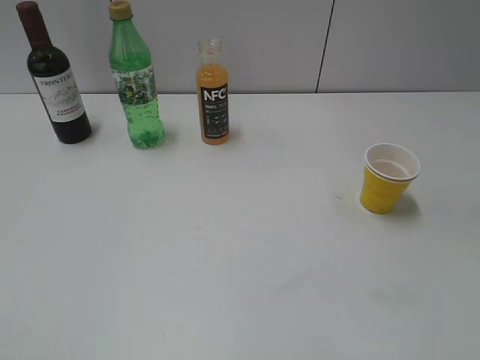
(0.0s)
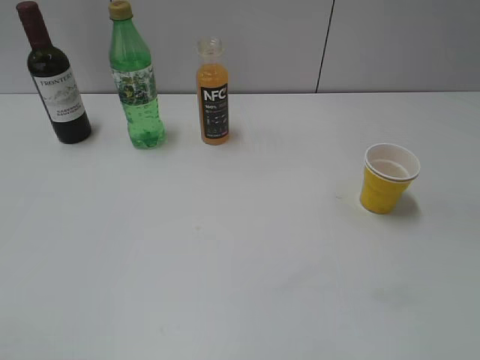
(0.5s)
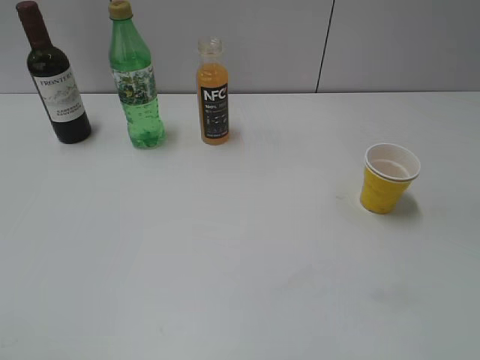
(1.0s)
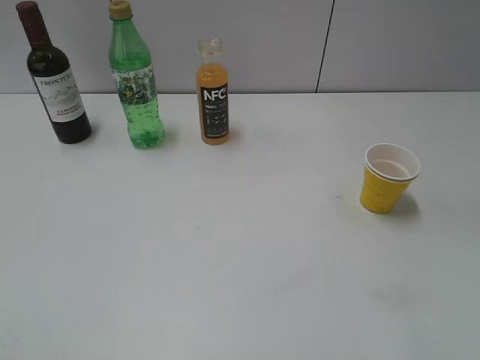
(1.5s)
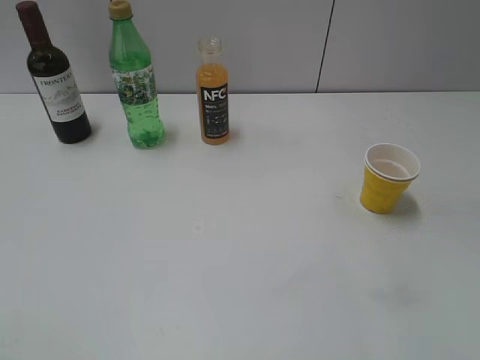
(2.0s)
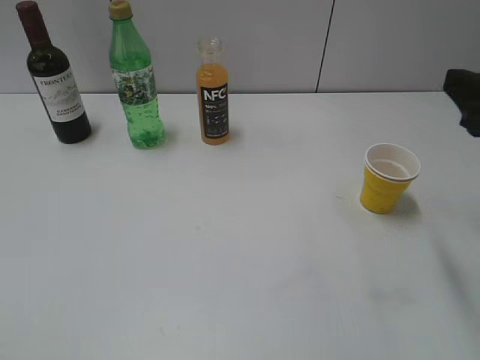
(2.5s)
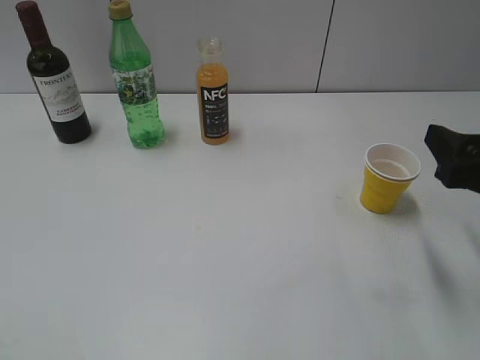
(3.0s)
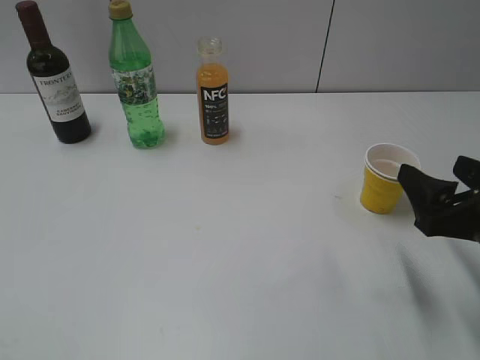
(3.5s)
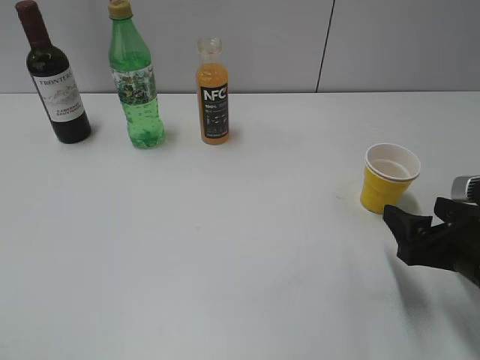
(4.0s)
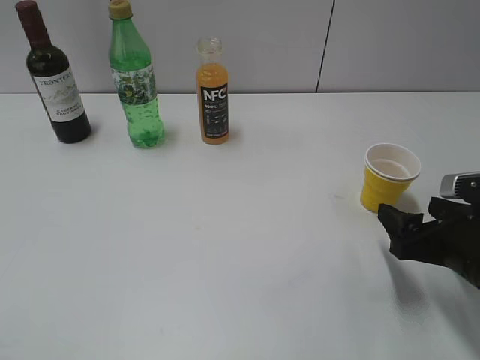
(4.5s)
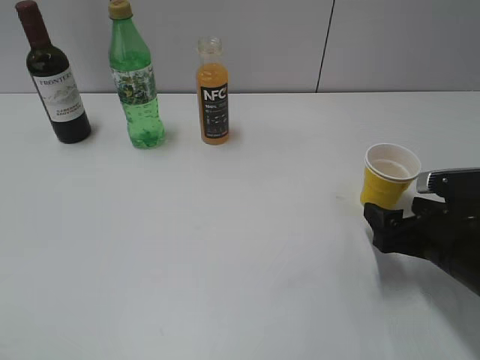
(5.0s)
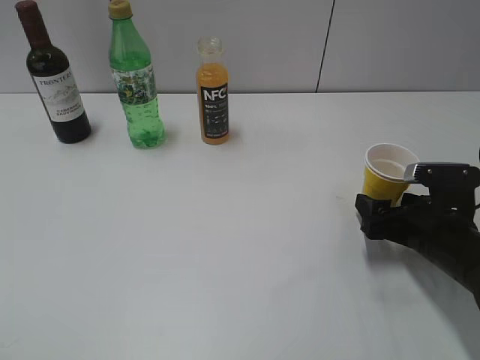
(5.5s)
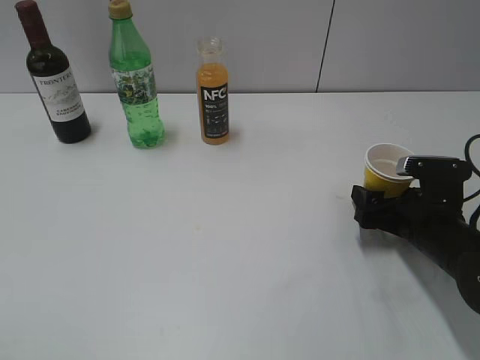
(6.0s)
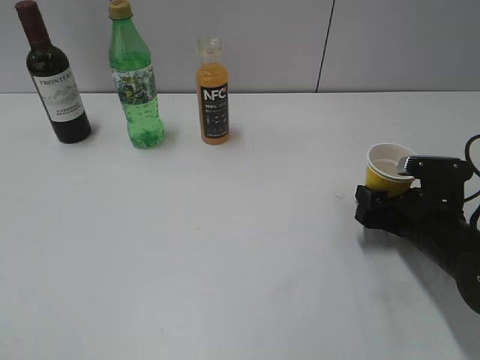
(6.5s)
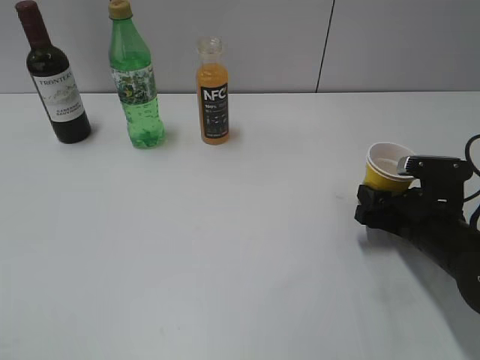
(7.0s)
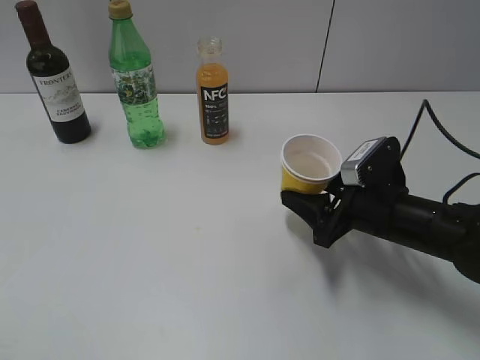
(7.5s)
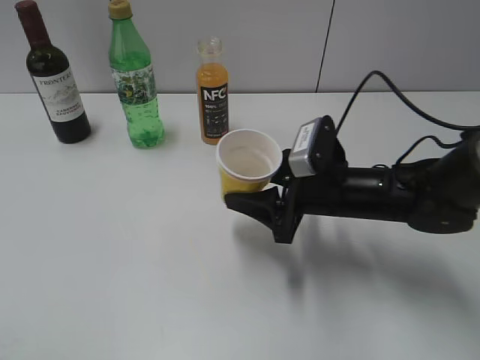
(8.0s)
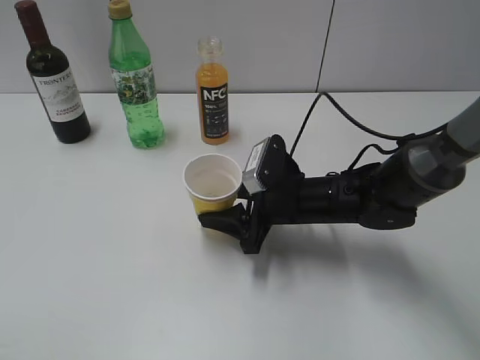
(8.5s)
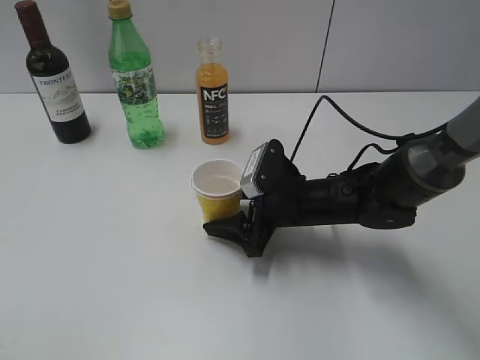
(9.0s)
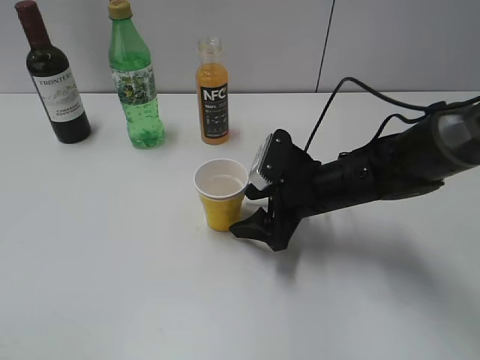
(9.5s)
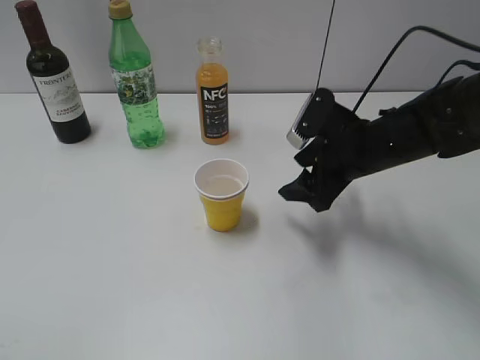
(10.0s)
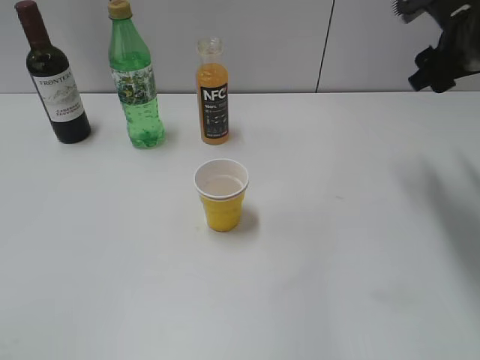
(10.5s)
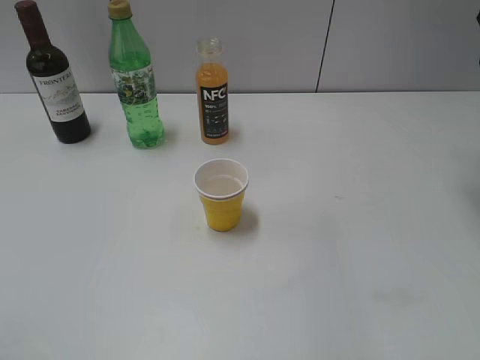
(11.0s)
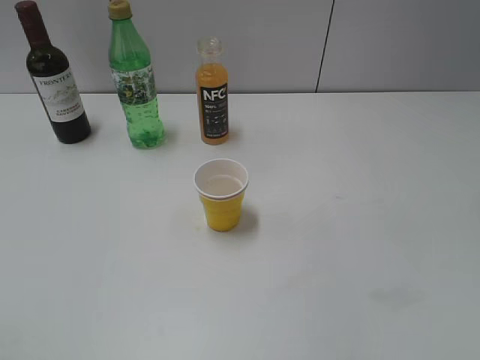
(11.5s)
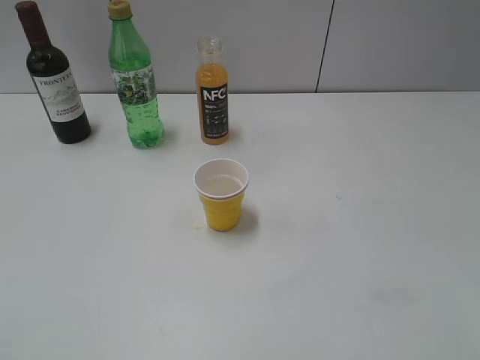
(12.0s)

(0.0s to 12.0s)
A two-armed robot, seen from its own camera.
Step, 2.5s - 6.5s: Grasp the yellow paper cup with right gripper.
Step, 7.0s - 9.5s: Place the yellow paper cup on the table with right gripper.
2.0s - 4.0s: The right gripper shifts about 20 cm downward, and opens its fingers.
4.0s - 6.0s: The right gripper shifts roughly 10 cm forward and downward.
6.0s - 8.0s: The right gripper goes approximately 10 cm to the left, and closes.
8.0s - 10.0s: The right gripper opens.
10.0s - 12.0s: The right gripper shifts some 30 cm upward, backward and to the right.

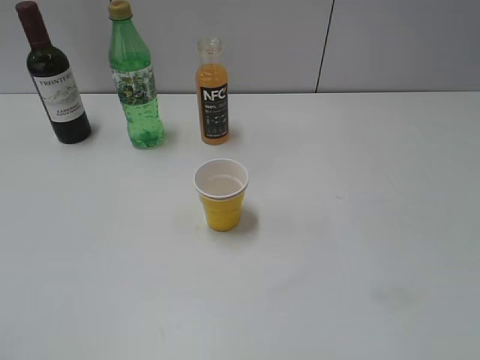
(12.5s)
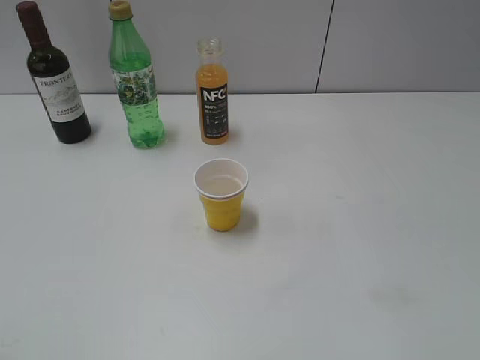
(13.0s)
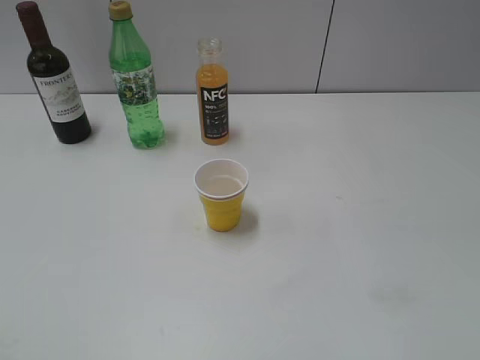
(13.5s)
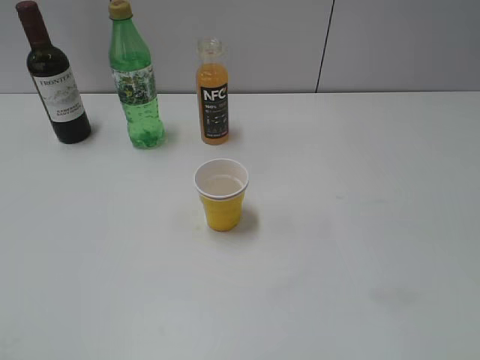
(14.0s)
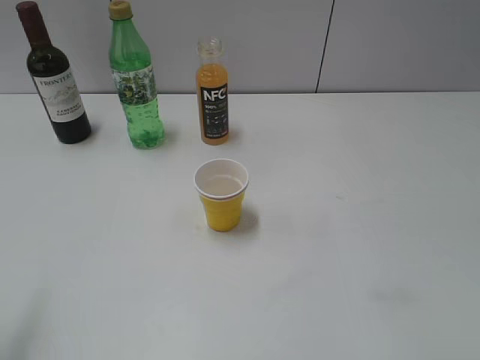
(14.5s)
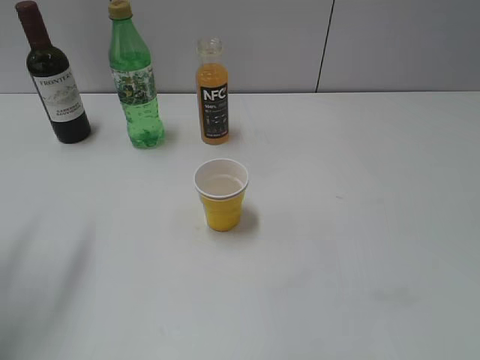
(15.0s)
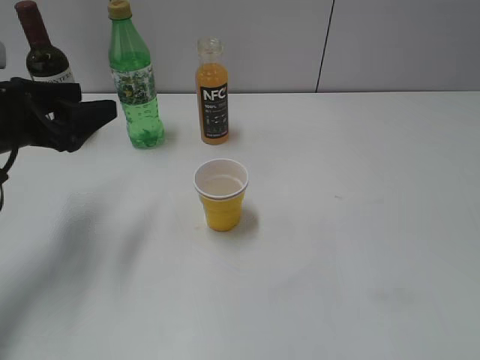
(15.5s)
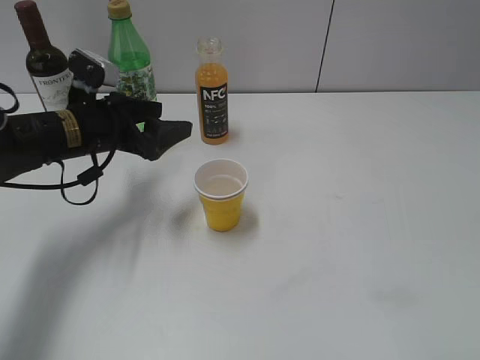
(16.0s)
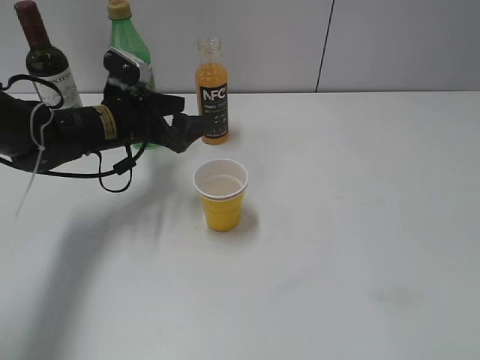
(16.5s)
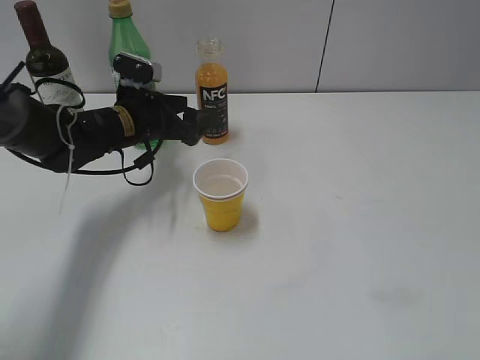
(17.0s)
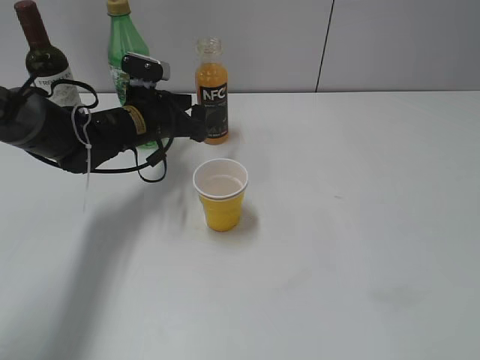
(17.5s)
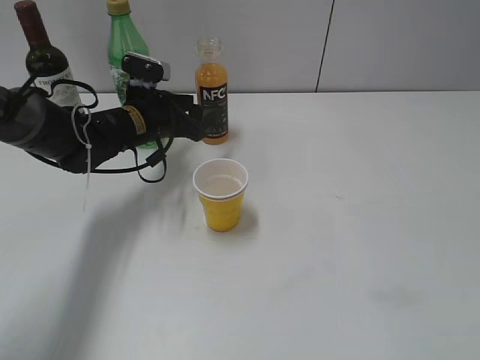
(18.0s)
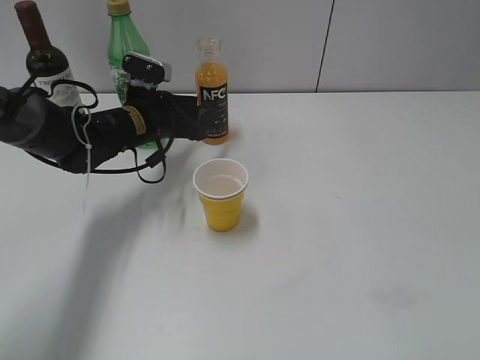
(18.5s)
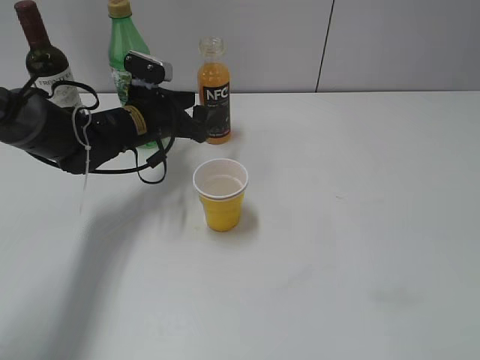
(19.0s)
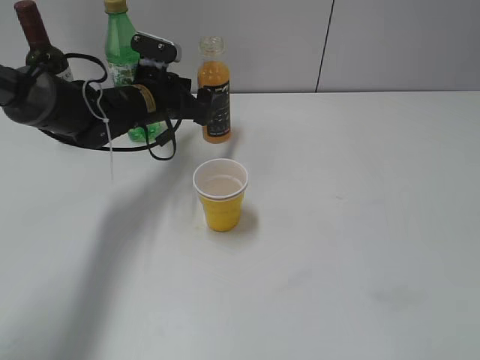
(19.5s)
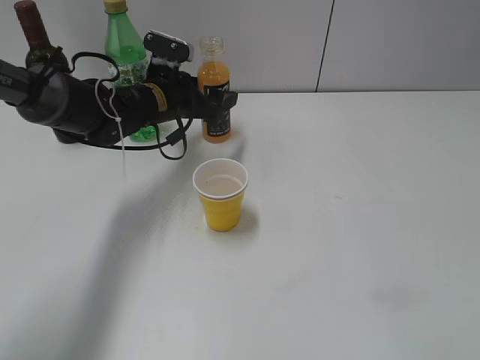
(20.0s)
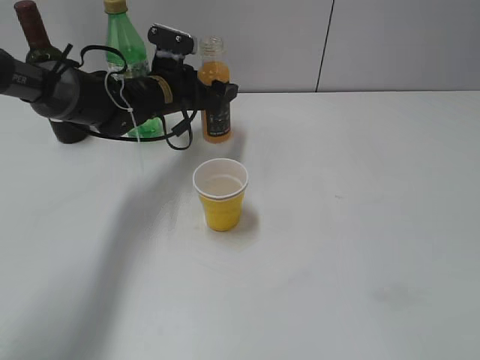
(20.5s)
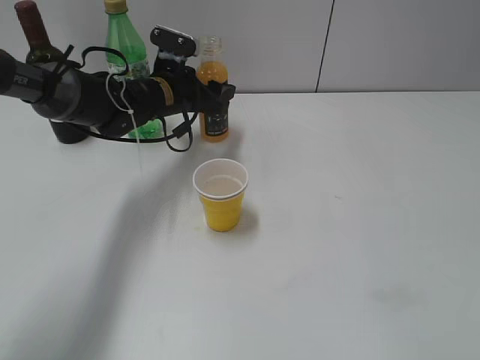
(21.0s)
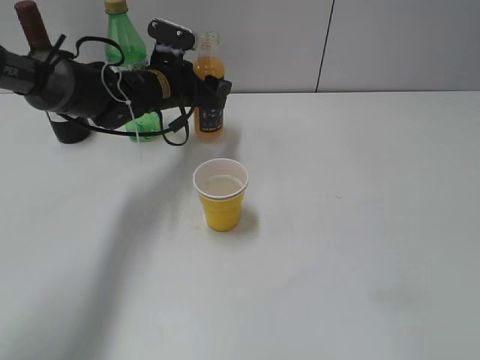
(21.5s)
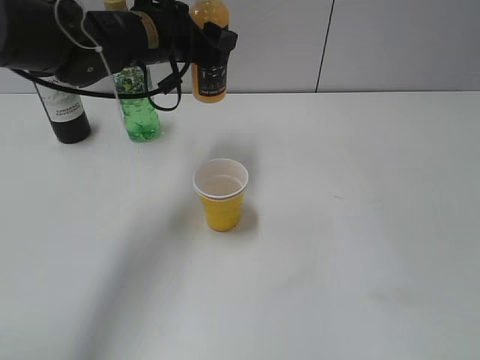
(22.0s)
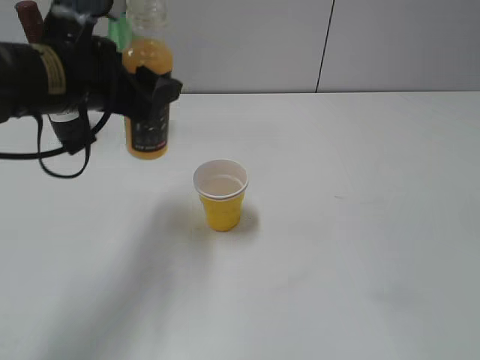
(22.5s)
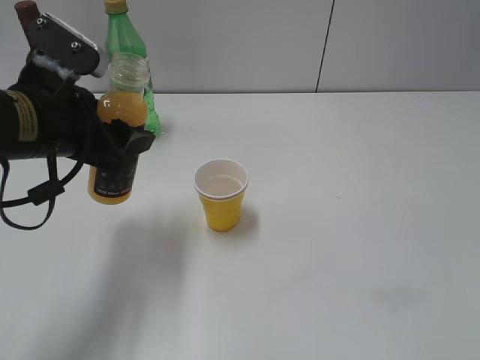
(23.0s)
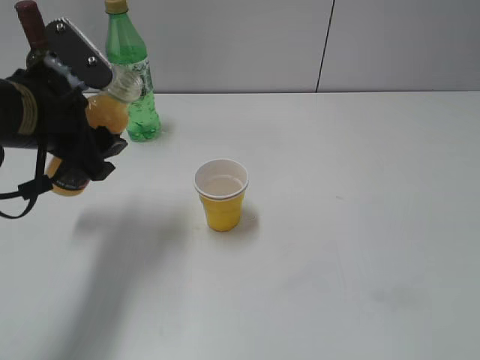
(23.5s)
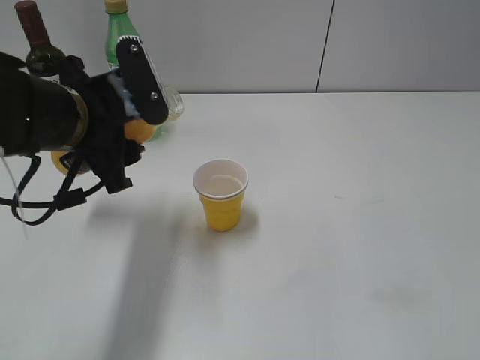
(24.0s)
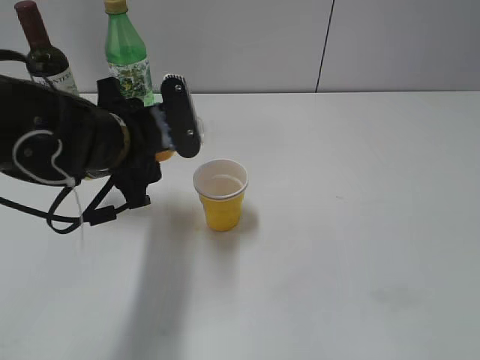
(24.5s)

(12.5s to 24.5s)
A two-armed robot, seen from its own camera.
Step, 12.5s - 21.0s: Grasp the bottle with orange juice with left gripper.
14.5s - 16.5s: The left gripper shifts some 40 cm forward, downward and to the right.
16.5s - 18.5s: The left gripper closes its fingers.
18.5s - 20.5s: The left gripper ends up some 5 cm from where it was, and opens up.
20.5s - 22.5s: The left gripper travels backward and upward by about 20 cm, and closes.
22.5s - 24.5s: The left gripper moves downward, approximately 5 cm.

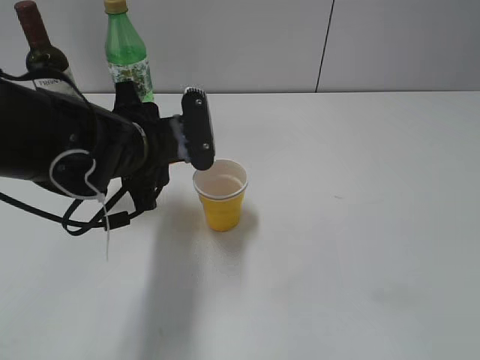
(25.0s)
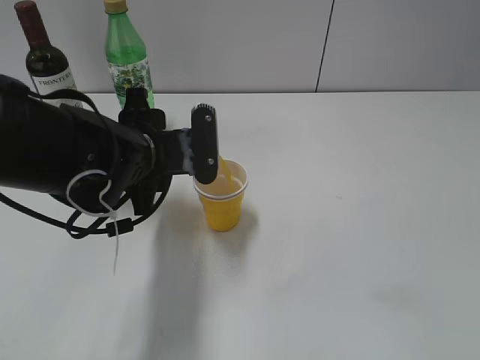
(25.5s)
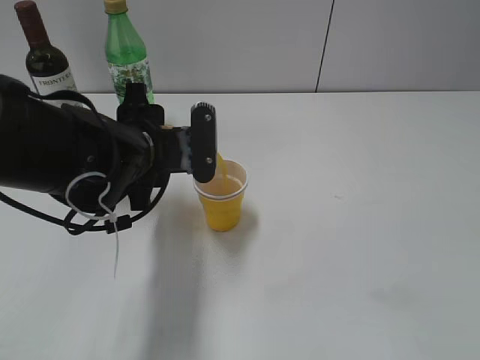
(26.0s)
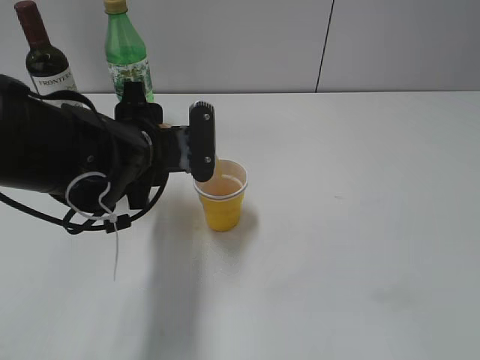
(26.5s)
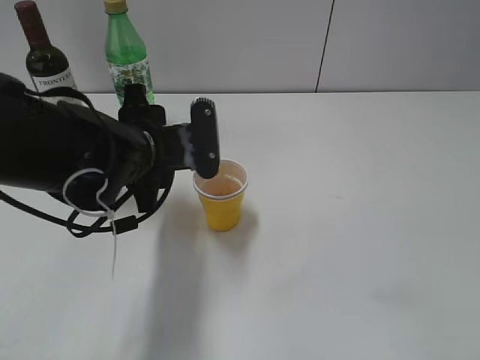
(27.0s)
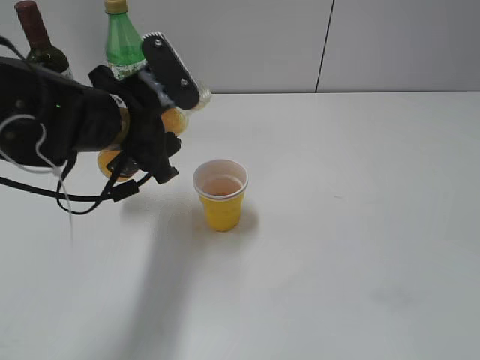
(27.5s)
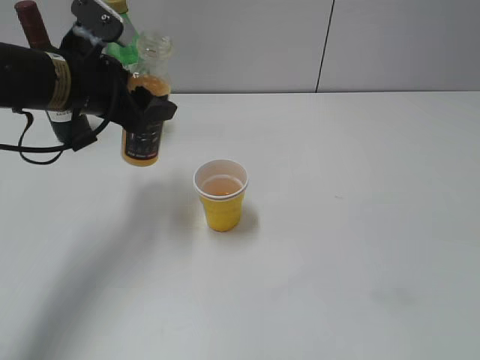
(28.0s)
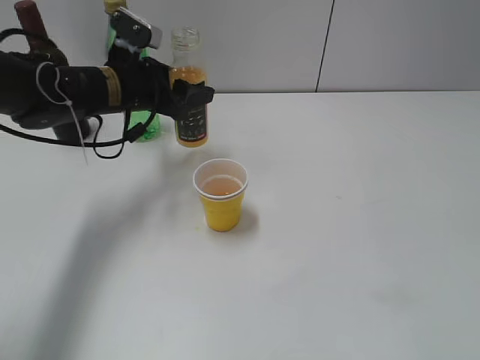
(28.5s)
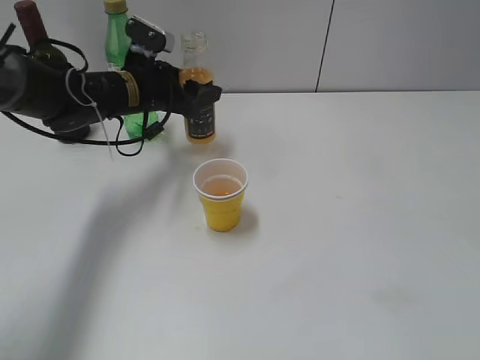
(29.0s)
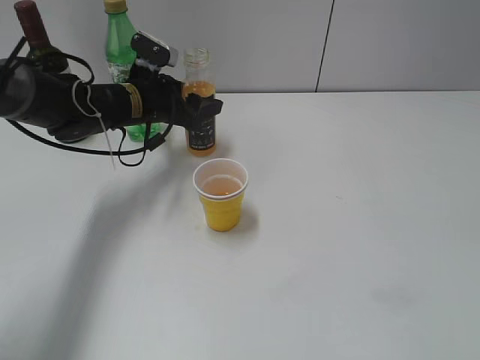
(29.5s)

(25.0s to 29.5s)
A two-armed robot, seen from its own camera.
Step, 25.0s - 27.0s: Pour the orange juice from bottle to cup with left gripper.
25.0s - 27.0s: The grippers make only small movements.
27.0s - 29.5s: The left gripper shifts roughly 15 cm forward.
